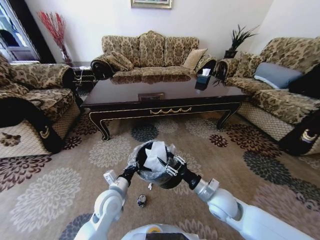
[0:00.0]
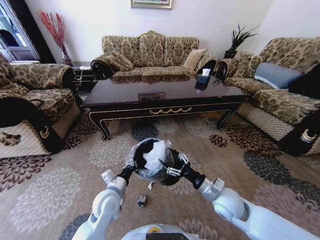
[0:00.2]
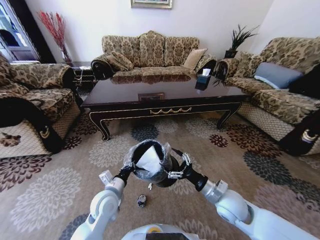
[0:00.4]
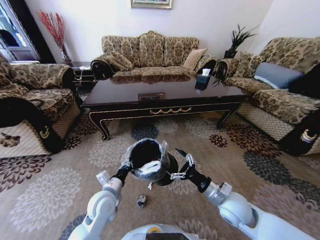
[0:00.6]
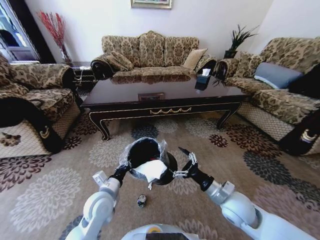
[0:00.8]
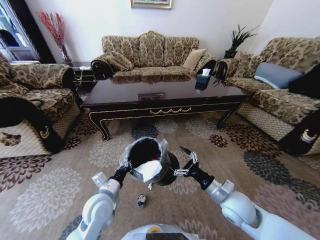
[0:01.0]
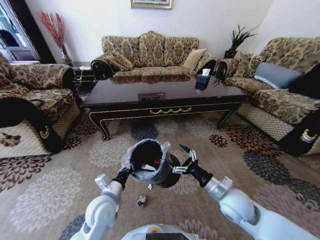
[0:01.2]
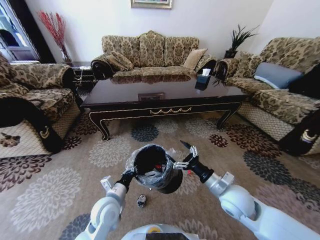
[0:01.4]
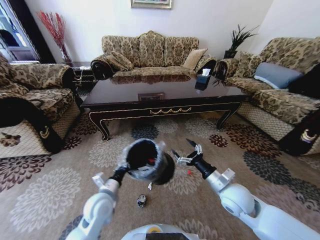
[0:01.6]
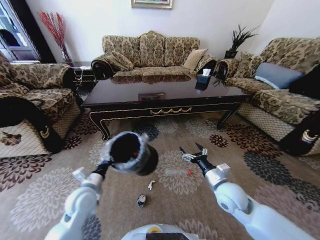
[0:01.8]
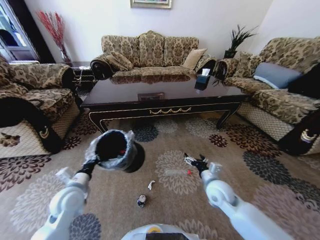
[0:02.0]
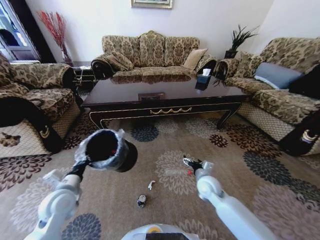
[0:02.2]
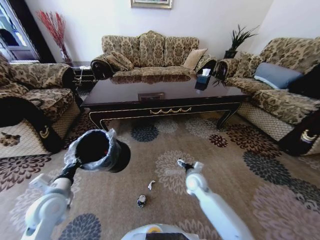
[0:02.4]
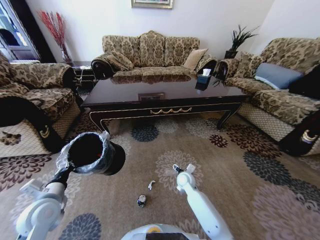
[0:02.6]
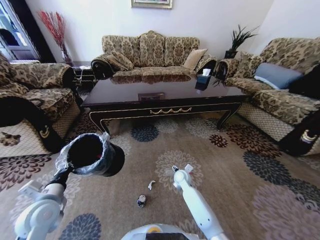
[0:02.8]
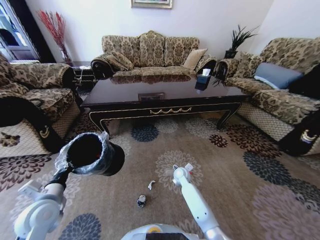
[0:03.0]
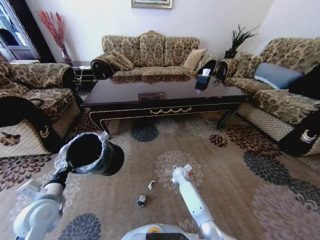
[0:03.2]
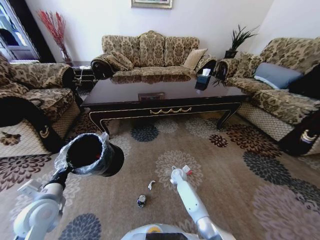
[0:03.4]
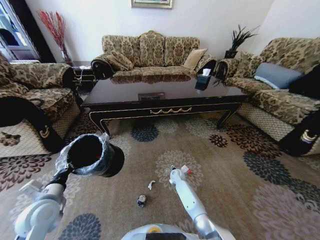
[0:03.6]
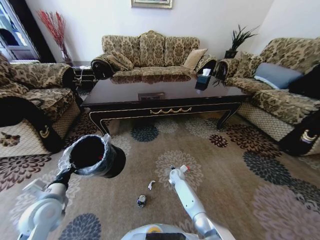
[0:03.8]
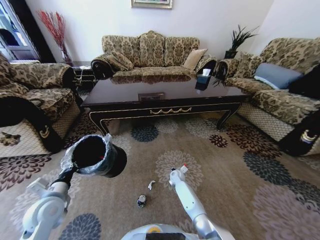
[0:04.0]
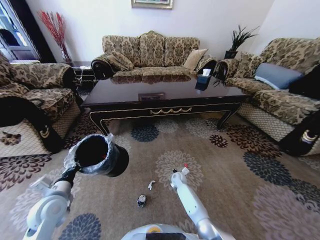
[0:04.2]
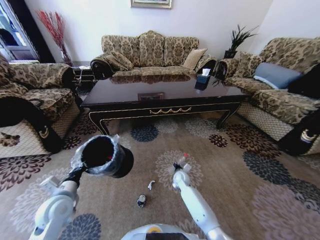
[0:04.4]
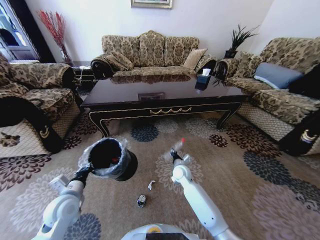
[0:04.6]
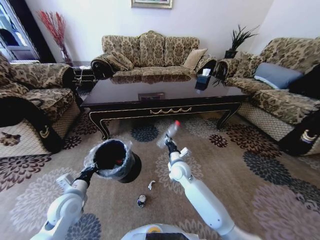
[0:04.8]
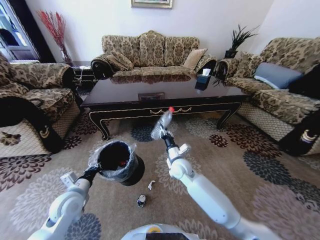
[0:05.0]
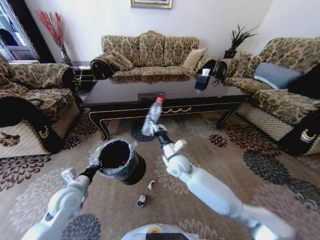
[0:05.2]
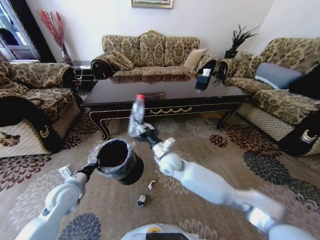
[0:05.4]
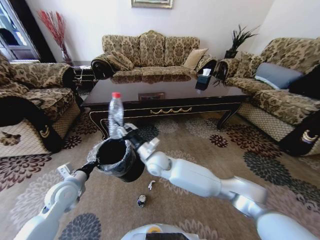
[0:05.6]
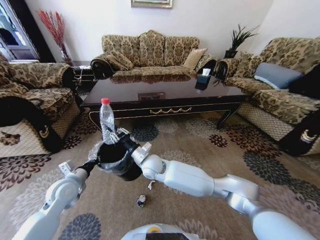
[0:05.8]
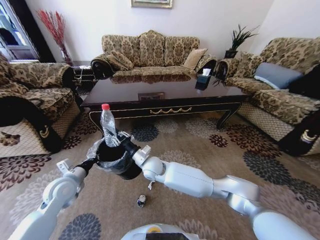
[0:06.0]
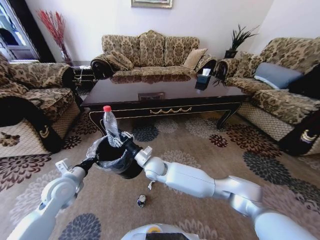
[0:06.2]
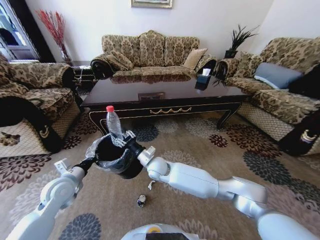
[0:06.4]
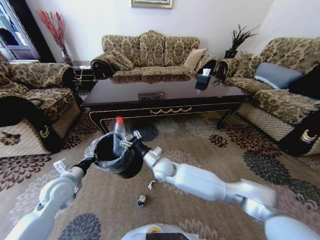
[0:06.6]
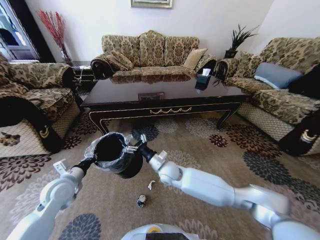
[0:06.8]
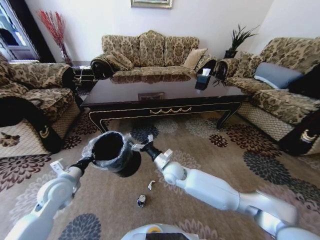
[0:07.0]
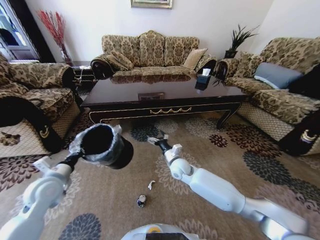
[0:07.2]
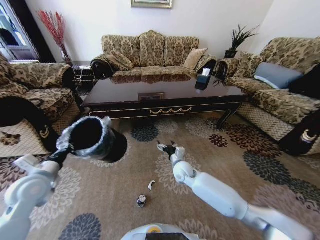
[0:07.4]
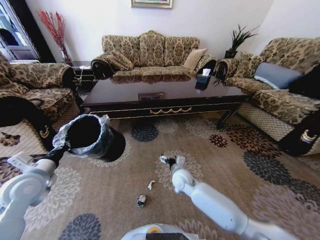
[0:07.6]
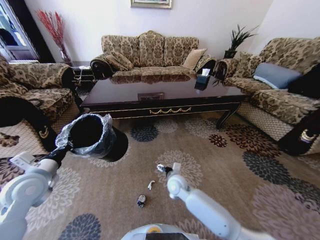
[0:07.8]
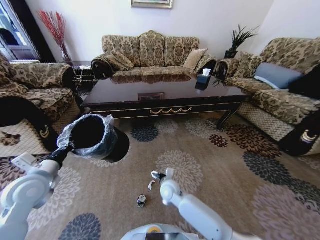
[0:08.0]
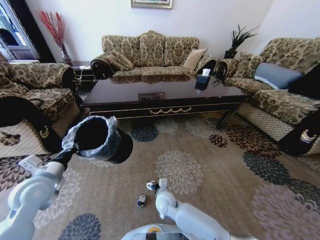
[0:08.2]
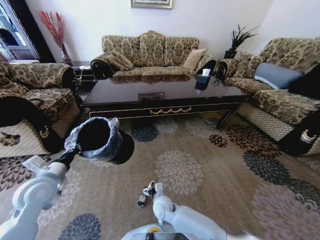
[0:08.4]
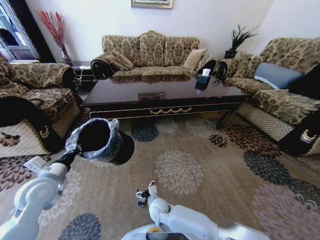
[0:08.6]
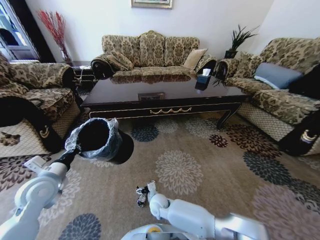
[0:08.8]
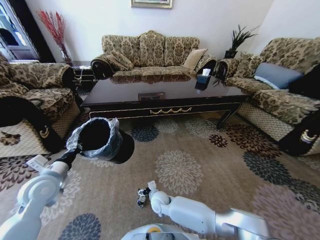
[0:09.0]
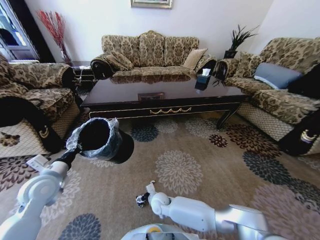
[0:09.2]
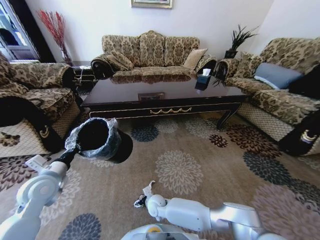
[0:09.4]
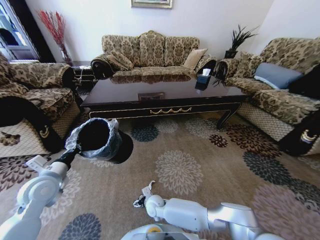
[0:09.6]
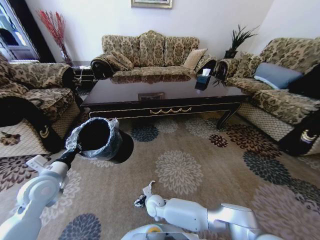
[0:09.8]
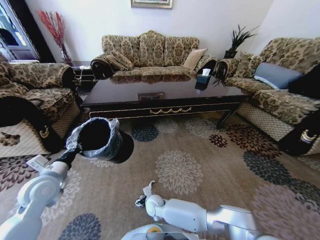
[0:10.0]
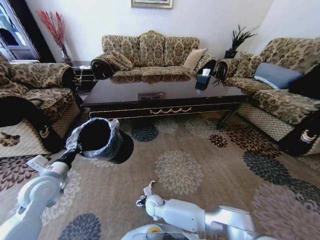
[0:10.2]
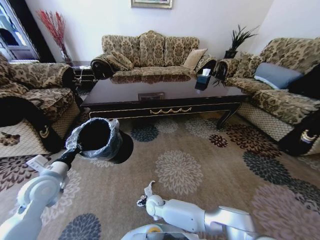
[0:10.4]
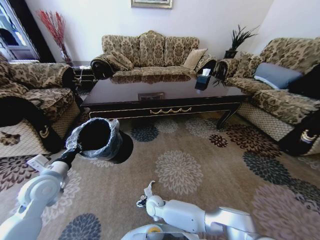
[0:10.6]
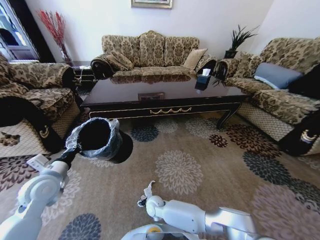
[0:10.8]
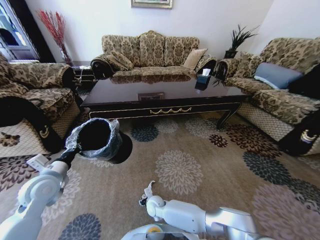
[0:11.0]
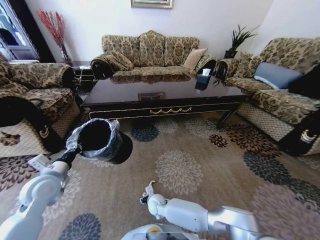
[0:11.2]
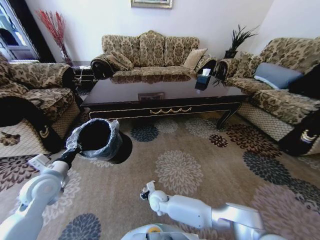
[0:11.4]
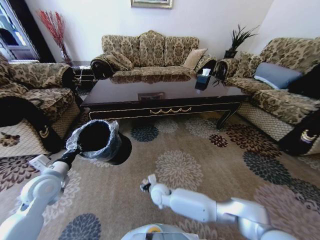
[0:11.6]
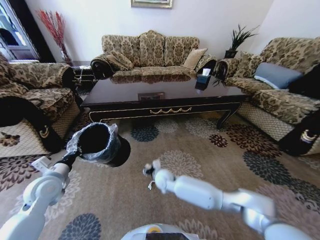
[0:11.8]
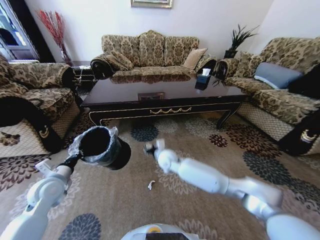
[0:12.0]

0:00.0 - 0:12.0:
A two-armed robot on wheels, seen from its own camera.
Task of the whole recording: Move to the front of the table and pick up the trash from the floor, then place it into the trash bin.
0:00.0 - 0:01.6: The right gripper moves some 5 cm, and opens up.
0:01.6 - 0:03.0: The right gripper travels downward, forward and to the left by some 25 cm. The left gripper shifts about 15 cm to the left.
0:03.0 - 0:04.4: The right gripper closes up.
0:04.4 - 0:06.0: The right gripper moves upward and to the left, approximately 25 cm. The left gripper travels forward by some 5 cm.
0:06.0 - 0:07.6: The right gripper heads to the right and downward, covering approximately 15 cm, and opens; the left gripper goes some 10 cm upward and to the left.
0:07.6 - 0:09.0: The right gripper heads downward, to the left and backward, covering roughly 20 cm.
0:09.0 - 0:10.4: The grippers make only small movements.
0:10.4 - 0:12.0: The right gripper is displaced upward and forward by approximately 25 cm, and closes up.

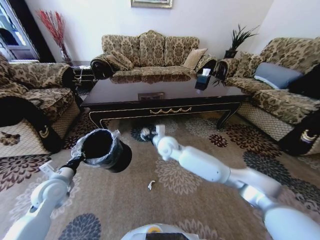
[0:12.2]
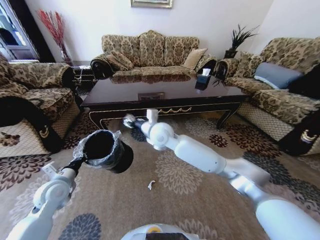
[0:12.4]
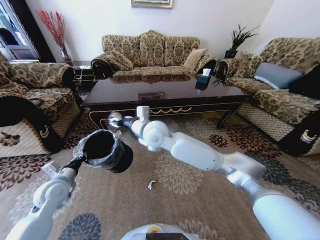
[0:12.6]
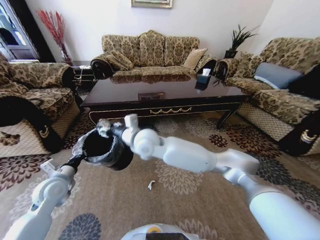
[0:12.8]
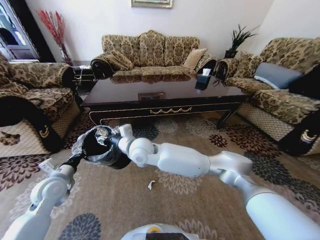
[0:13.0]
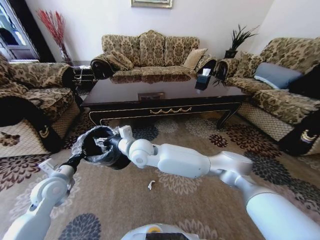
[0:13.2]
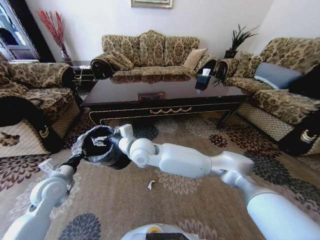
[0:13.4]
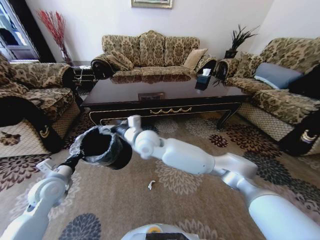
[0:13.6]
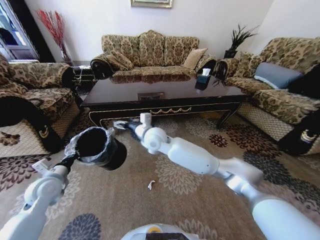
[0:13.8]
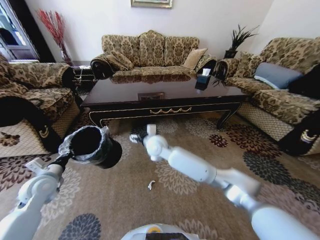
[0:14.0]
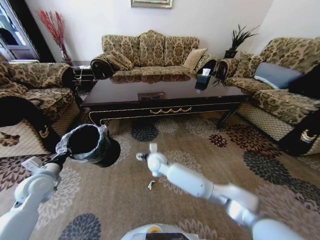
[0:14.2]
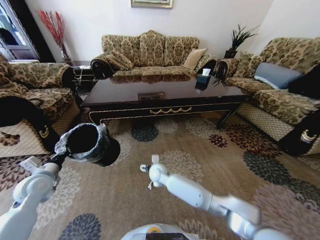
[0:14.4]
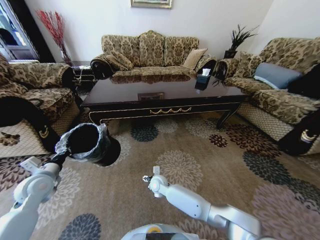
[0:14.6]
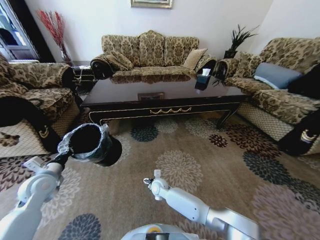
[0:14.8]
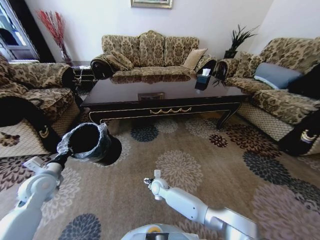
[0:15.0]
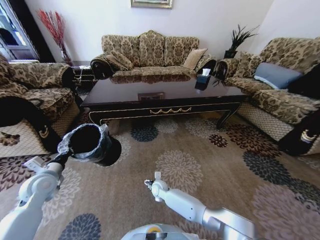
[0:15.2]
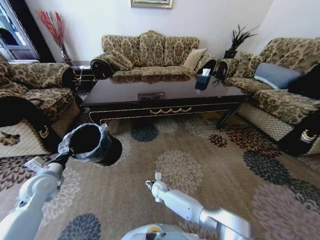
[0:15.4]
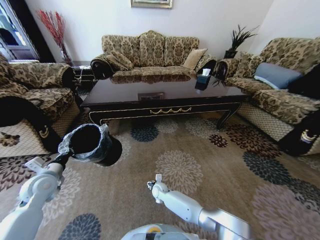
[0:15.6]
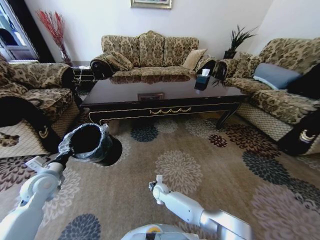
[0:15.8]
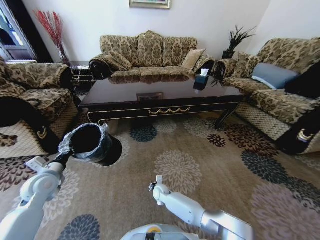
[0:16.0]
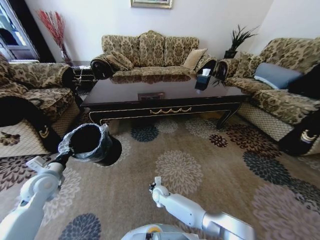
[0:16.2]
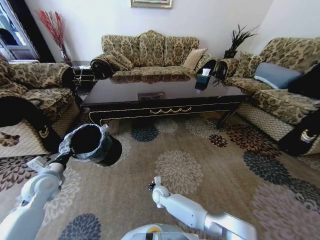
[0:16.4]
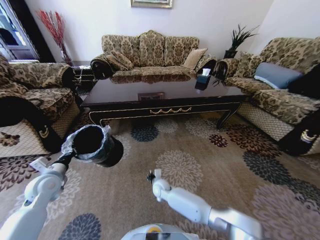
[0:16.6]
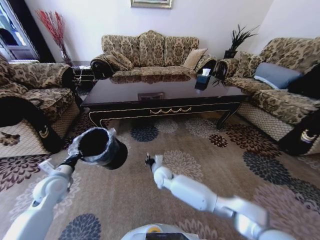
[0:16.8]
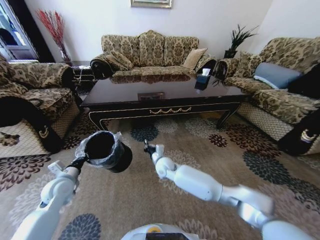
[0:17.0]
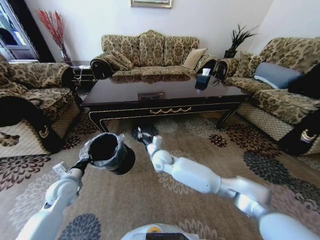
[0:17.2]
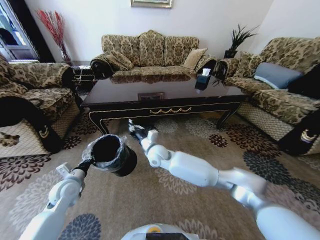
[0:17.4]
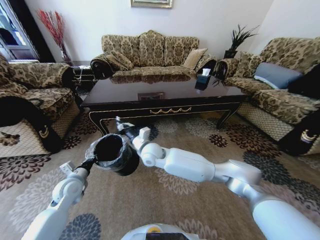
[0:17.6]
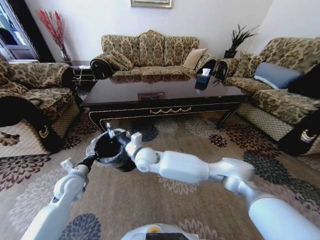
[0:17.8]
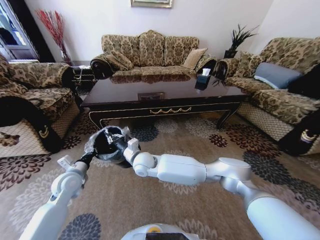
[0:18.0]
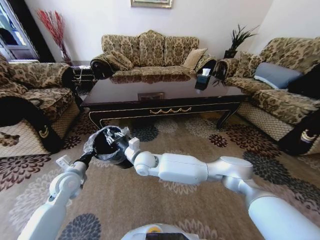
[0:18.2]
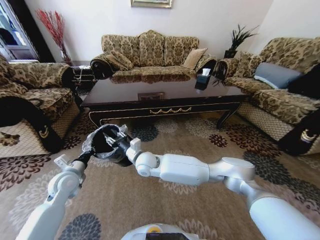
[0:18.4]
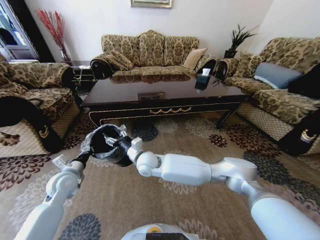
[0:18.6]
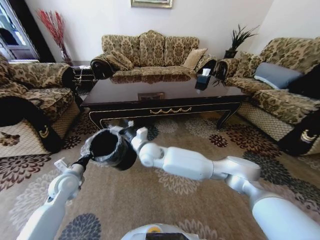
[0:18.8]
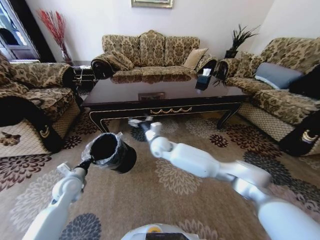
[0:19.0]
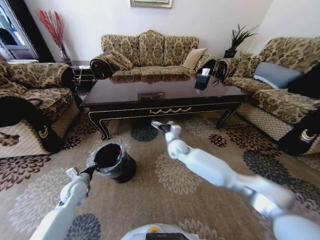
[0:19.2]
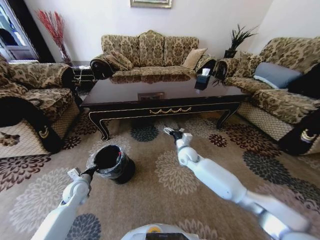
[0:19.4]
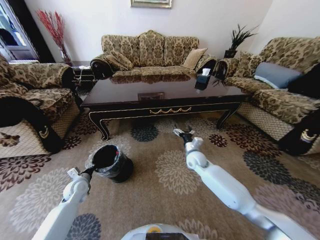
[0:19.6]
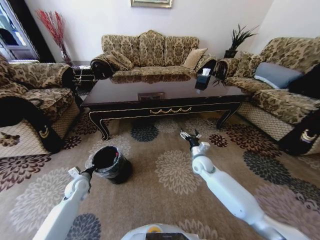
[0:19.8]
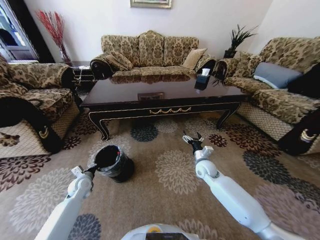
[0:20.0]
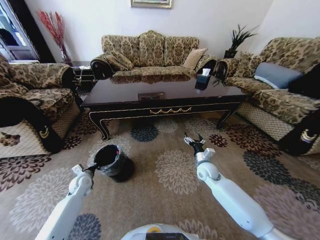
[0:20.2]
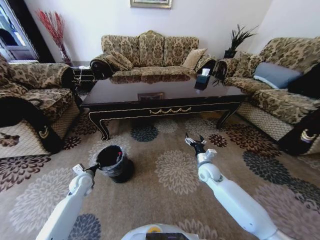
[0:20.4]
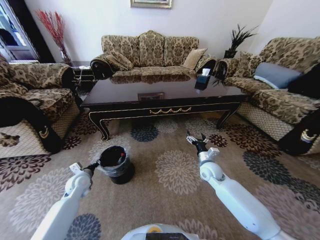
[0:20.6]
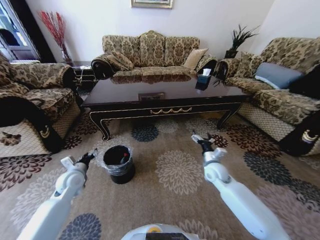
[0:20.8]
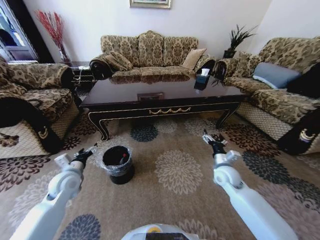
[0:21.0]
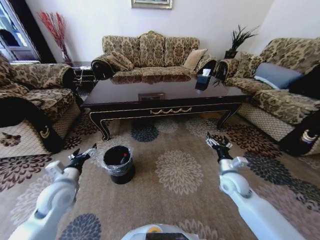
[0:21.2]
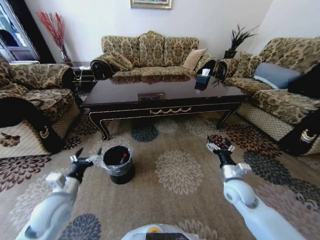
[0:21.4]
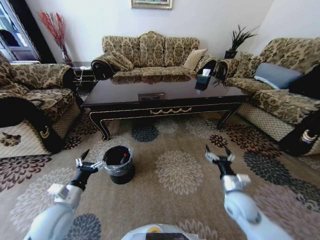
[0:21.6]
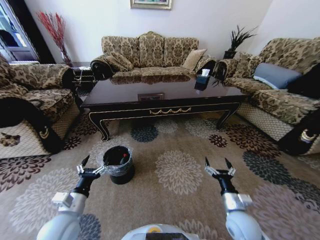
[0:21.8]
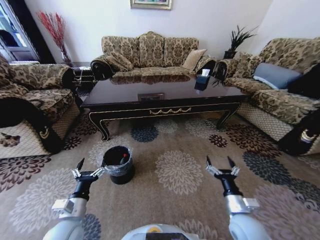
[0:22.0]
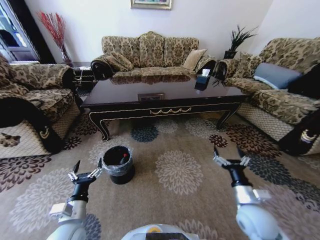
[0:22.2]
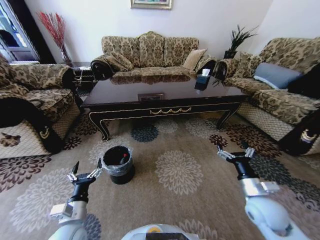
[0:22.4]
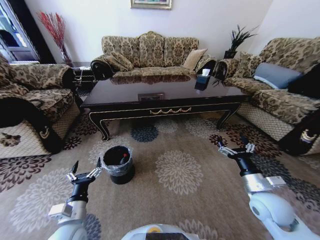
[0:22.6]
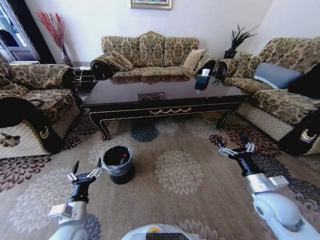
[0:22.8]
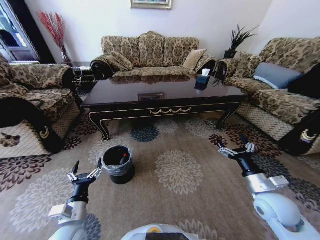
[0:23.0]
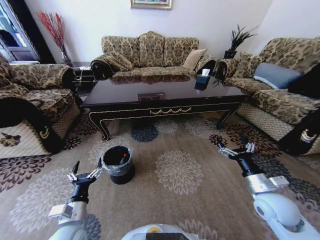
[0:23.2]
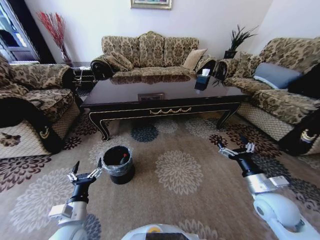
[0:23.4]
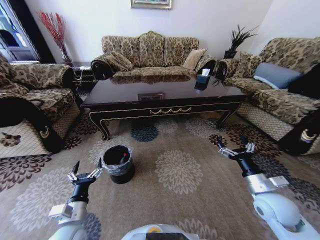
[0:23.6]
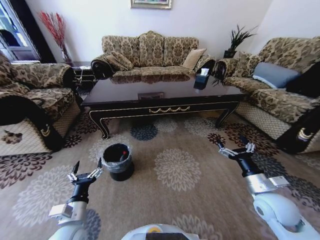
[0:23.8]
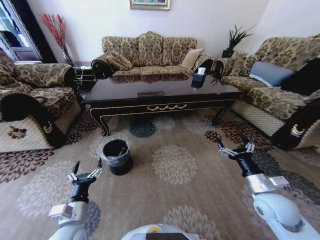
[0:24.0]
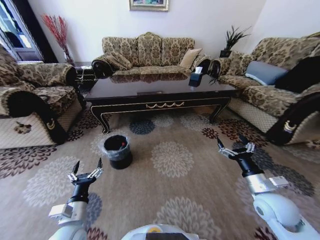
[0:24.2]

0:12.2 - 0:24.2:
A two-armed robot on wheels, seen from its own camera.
Task of the whole recording: Move to the front of the table and pick up the trash from the floor, then place it into the trash bin.
0:12.2 - 0:13.8: The right gripper moves upward and to the left, roughly 10 cm, and opens its fingers.
0:13.8 - 0:15.2: The right gripper goes roughly 35 cm downward.
0:15.2 - 0:16.6: The right gripper closes.
0:16.6 - 0:18.2: The left gripper heads to the right, covering about 5 cm. Meanwhile the right gripper travels upward by roughly 25 cm.
0:18.2 - 0:19.8: The left gripper shifts approximately 10 cm downward. The right gripper travels to the right by some 30 cm, and opens up.
0:19.8 - 0:21.2: The left gripper shifts approximately 15 cm upward and backward, and opens up. The right gripper shifts approximately 15 cm backward and to the right.
0:21.2 - 0:22.6: The right gripper goes some 10 cm backward; the left gripper shifts about 15 cm backward and to the right.
